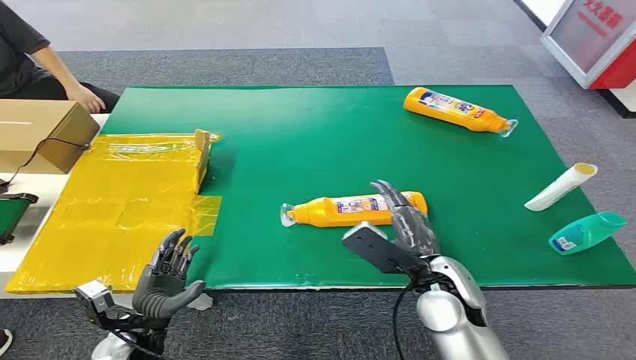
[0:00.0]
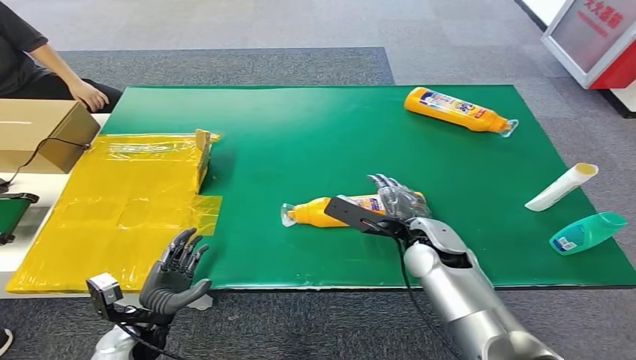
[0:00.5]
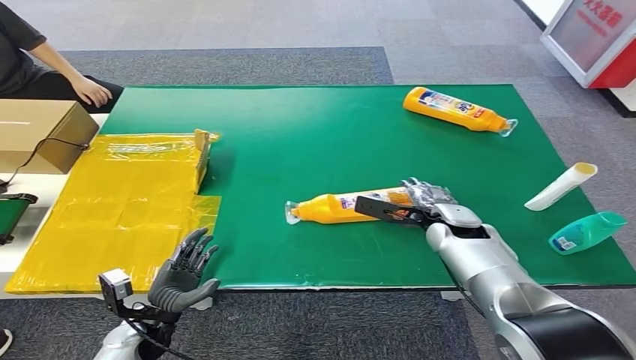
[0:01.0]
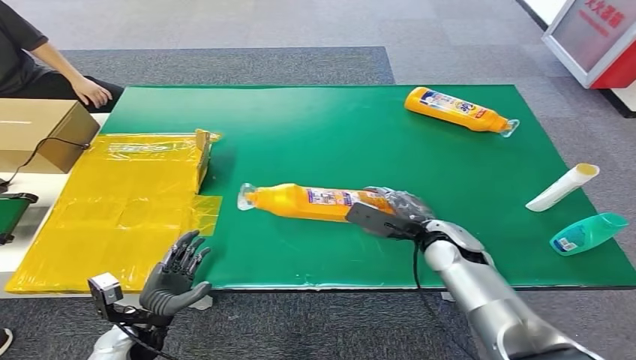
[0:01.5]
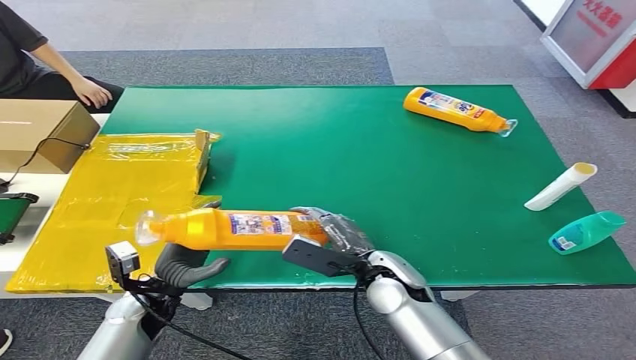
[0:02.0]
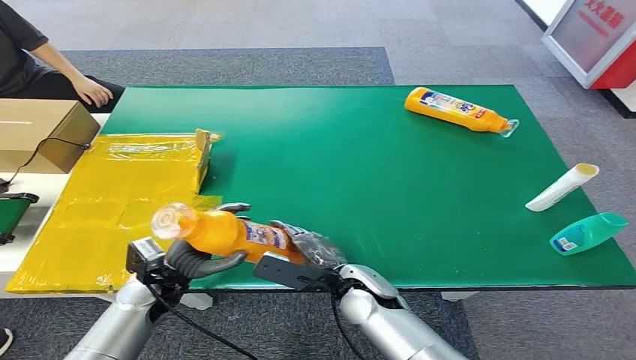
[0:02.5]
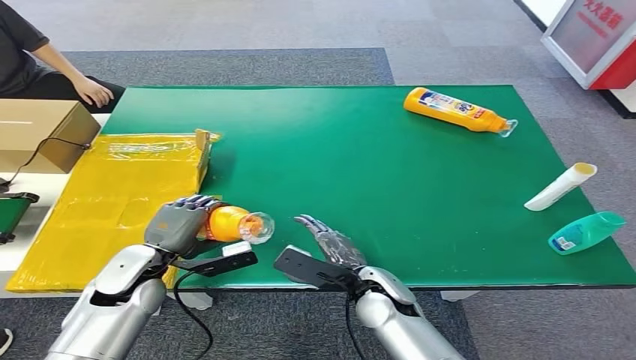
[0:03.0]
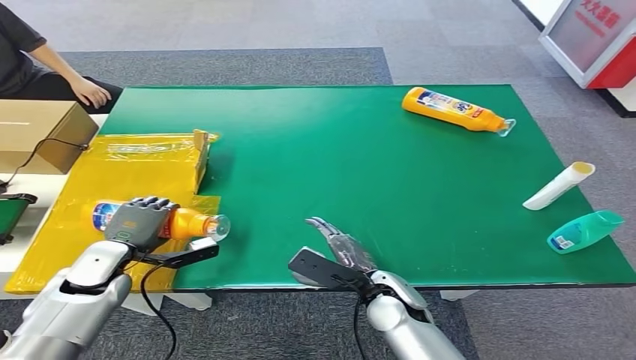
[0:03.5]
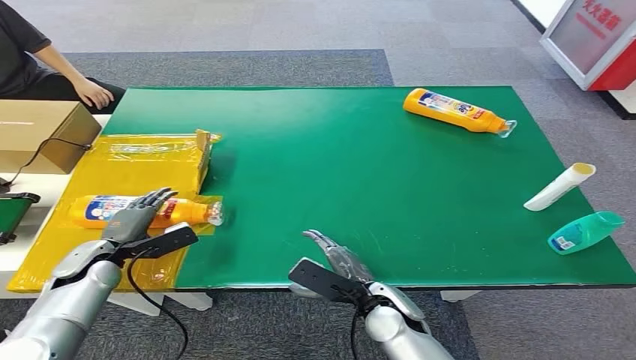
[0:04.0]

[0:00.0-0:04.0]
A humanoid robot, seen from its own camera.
Step, 0:00.0 to 0:01.5: Pick up the bottle from the table.
Step, 0:02.0 to 0:04.0: Turn the bottle to the front side.
0:02.0 to 0:04.0: The right hand changes place by about 5 cm. The left hand is displaced to the left and forward by approximately 10 cm.
